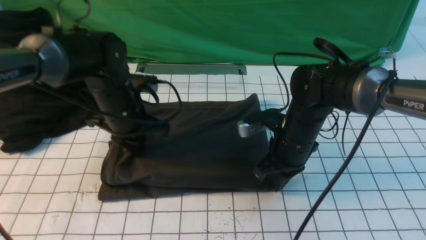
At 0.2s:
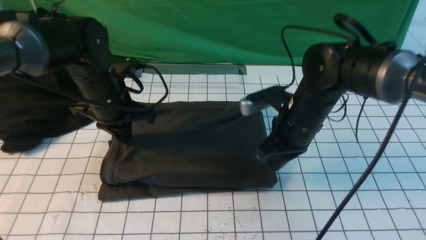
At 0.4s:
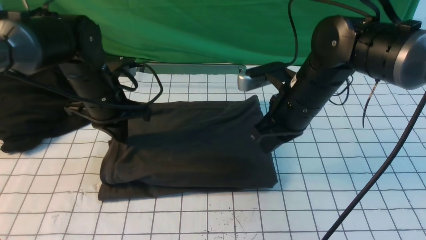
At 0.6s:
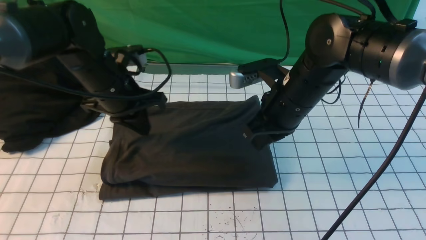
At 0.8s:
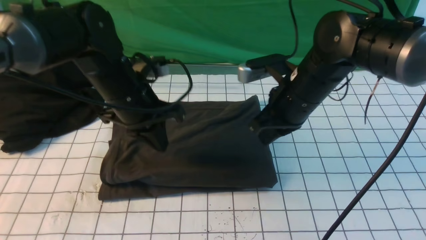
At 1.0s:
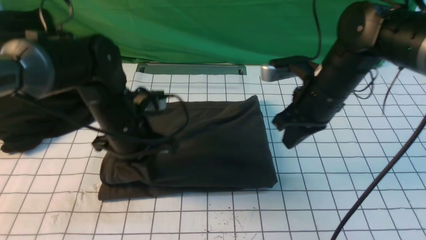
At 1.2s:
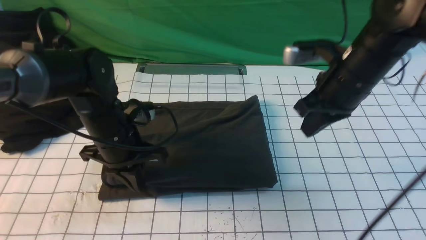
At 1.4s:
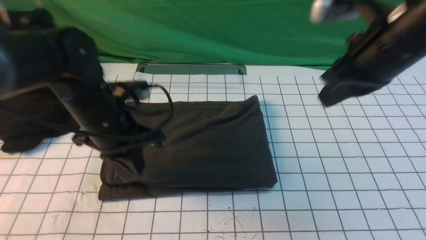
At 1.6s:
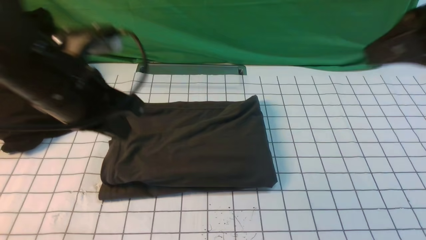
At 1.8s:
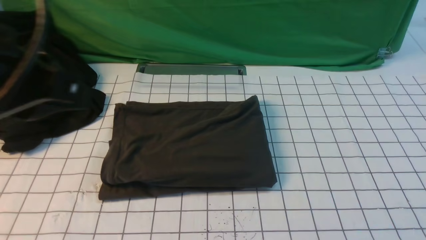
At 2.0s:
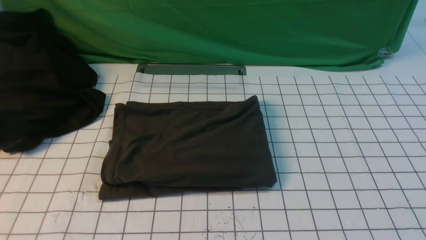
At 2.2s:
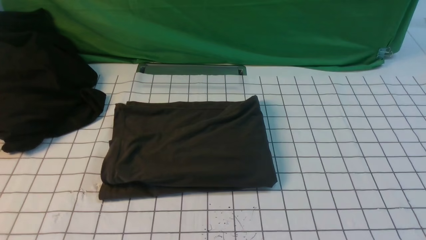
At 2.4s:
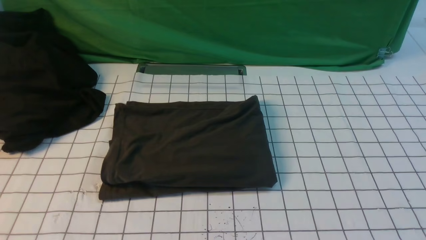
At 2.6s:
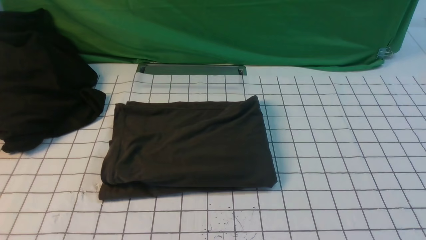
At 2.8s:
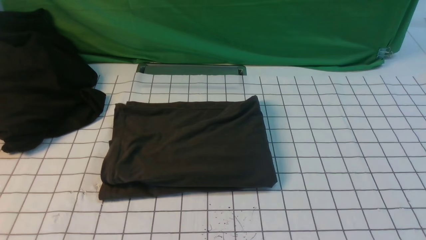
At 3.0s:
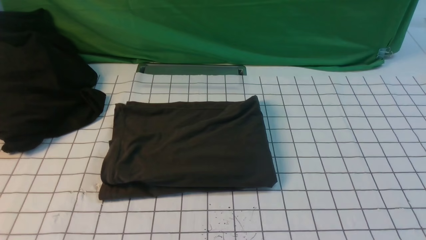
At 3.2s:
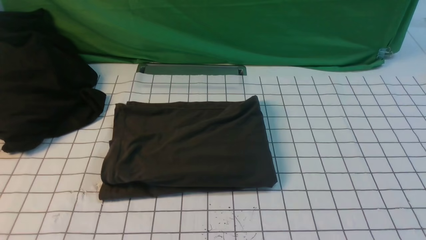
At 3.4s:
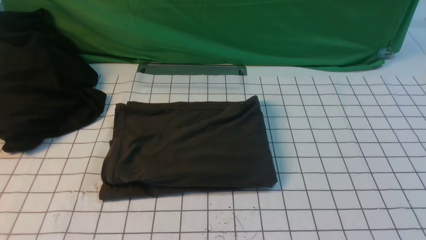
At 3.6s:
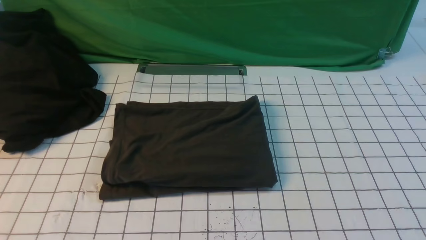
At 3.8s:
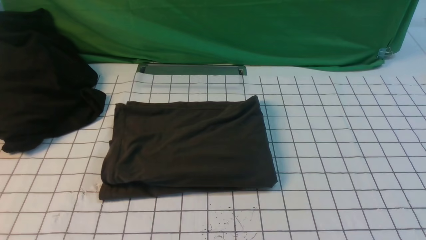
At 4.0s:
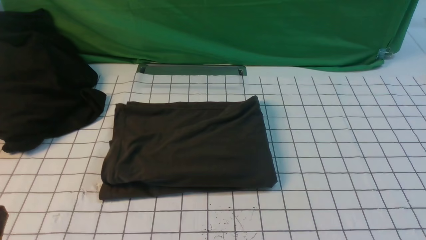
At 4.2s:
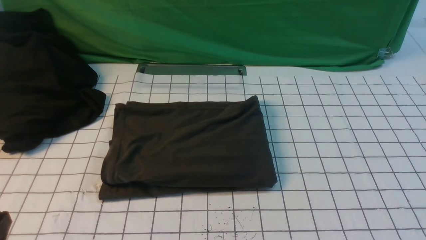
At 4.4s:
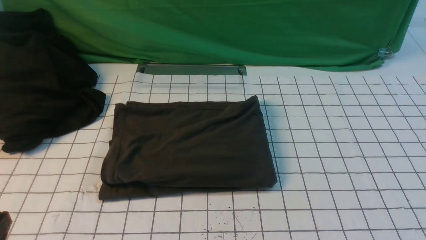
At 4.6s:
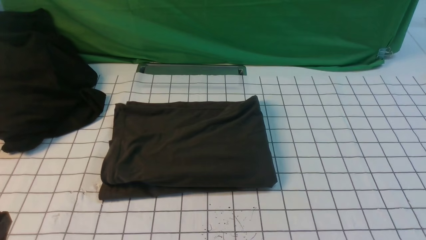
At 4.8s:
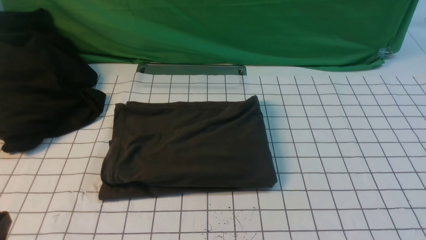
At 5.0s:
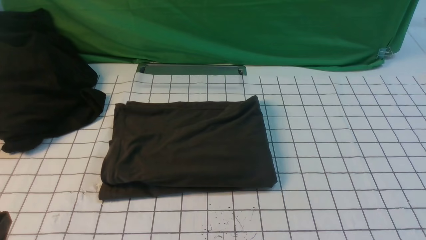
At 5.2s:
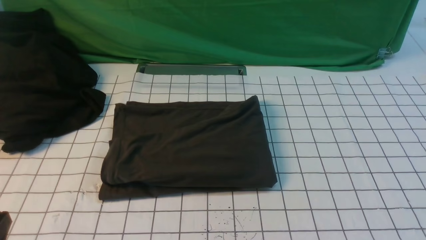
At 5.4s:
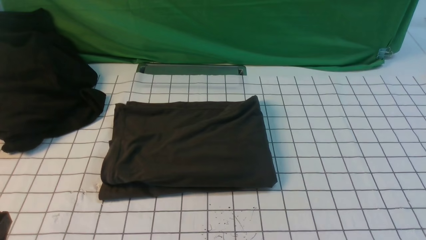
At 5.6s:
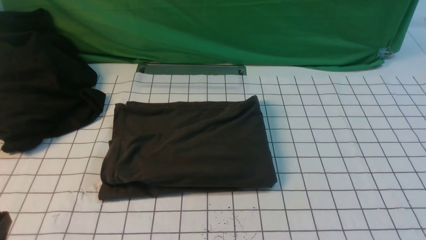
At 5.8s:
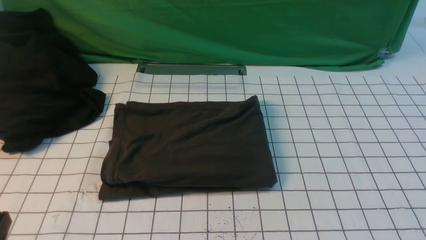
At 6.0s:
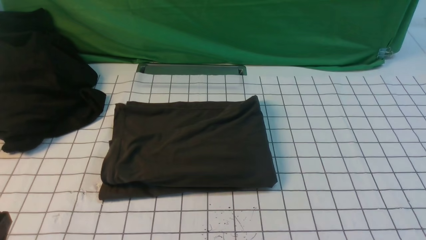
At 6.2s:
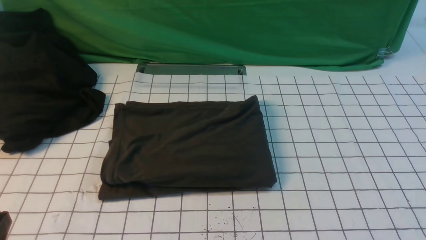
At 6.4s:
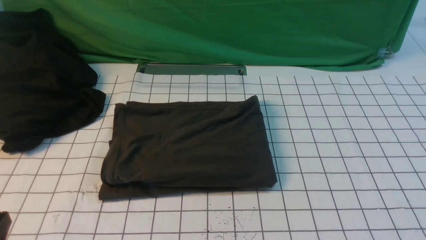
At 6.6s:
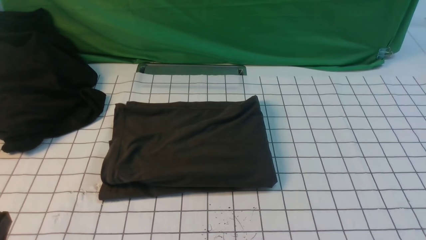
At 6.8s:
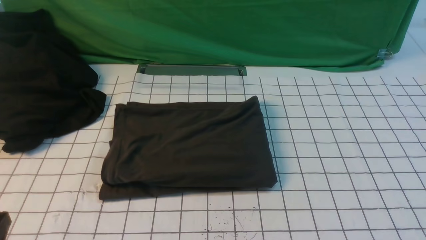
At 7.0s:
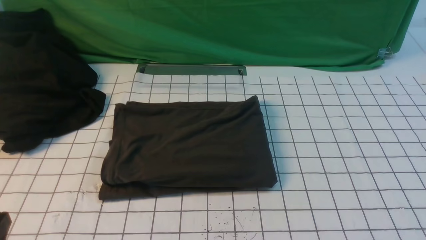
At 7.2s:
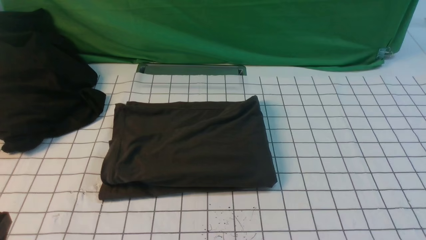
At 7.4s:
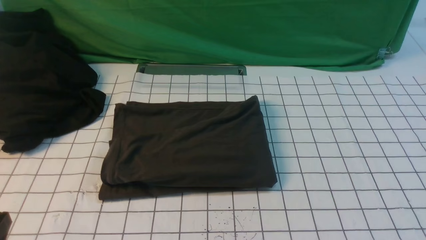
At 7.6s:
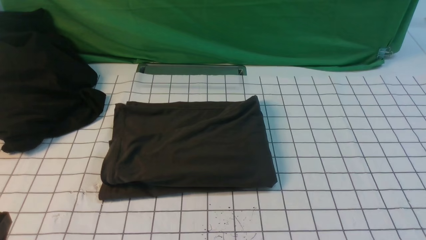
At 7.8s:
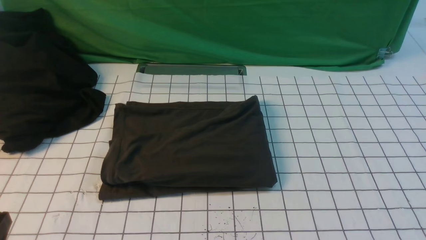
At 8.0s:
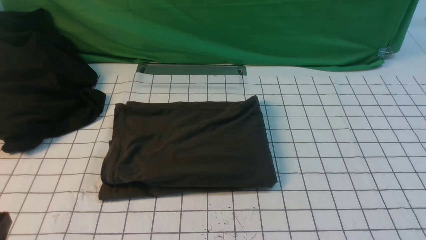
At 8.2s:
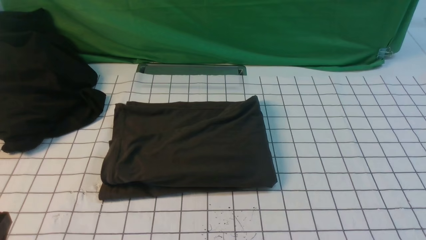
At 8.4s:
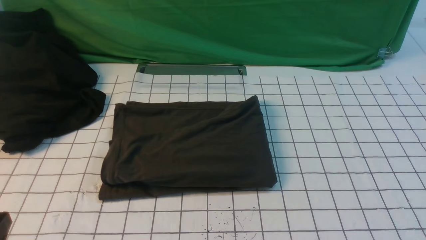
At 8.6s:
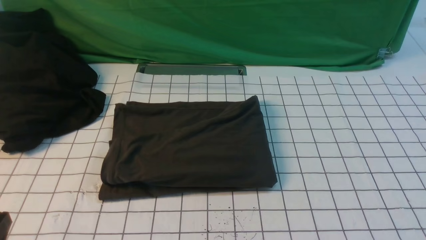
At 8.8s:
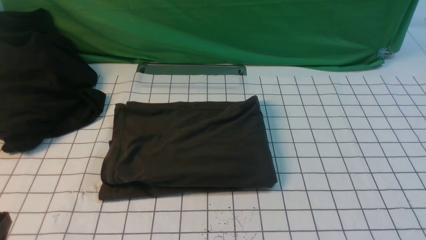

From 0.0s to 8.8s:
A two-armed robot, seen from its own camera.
From 0.0s to 1.4s: The right gripper moves upward, roughly 20 cm. Meanwhile the left gripper moves backward and upward, some 10 cm.
From 1.4s to 3.0s: The left gripper goes some 30 cm backward; the right gripper goes roughly 30 cm backward and to the right.
From 7.4s to 8.8s: Both grippers stay put.

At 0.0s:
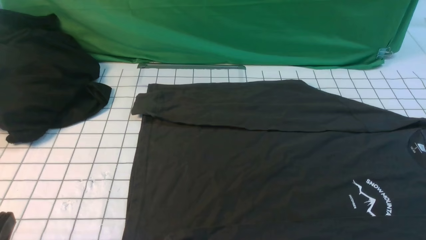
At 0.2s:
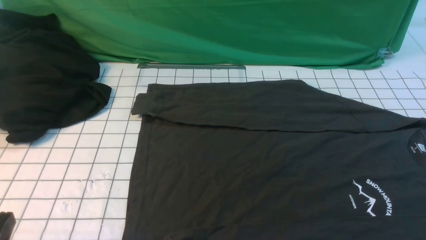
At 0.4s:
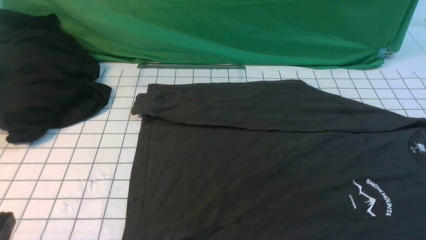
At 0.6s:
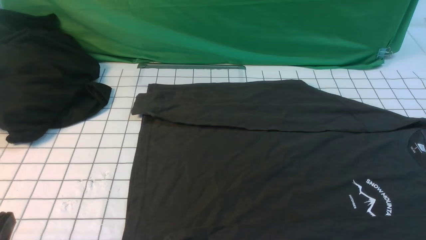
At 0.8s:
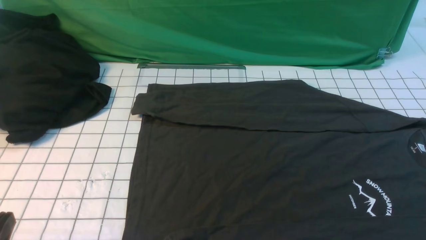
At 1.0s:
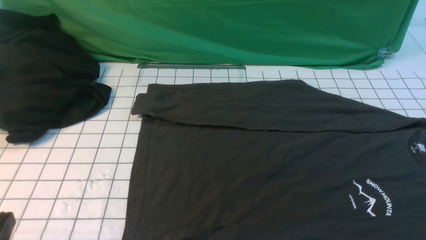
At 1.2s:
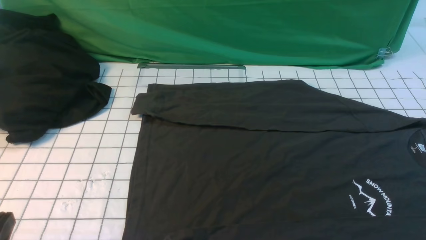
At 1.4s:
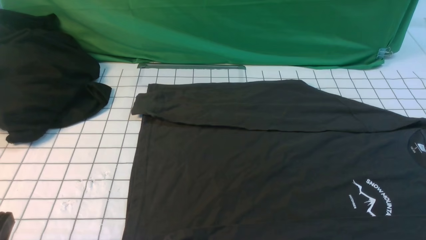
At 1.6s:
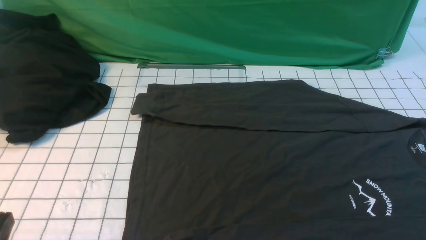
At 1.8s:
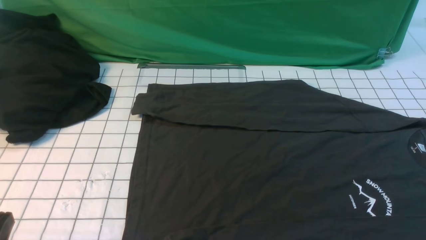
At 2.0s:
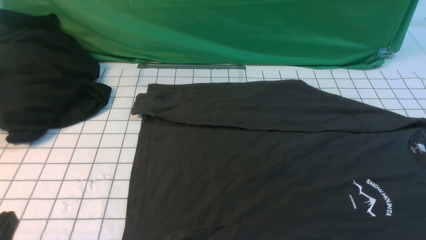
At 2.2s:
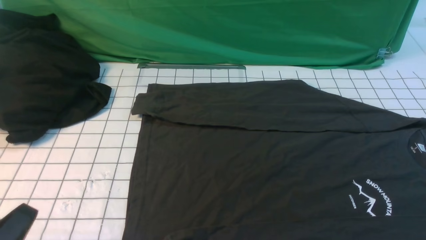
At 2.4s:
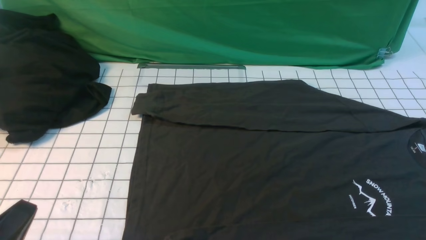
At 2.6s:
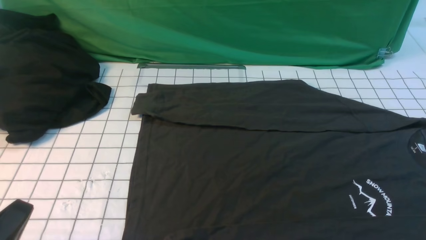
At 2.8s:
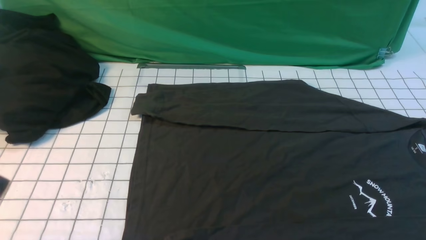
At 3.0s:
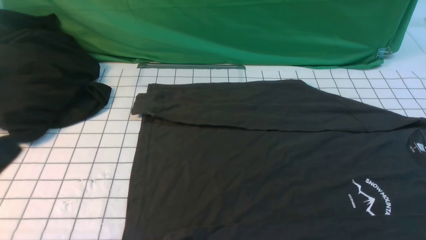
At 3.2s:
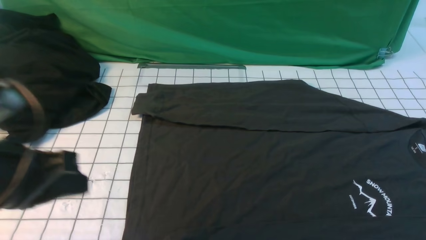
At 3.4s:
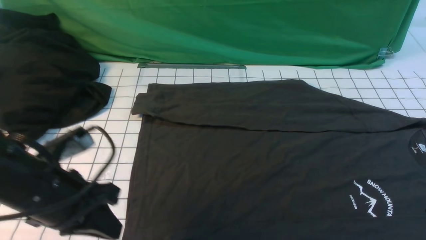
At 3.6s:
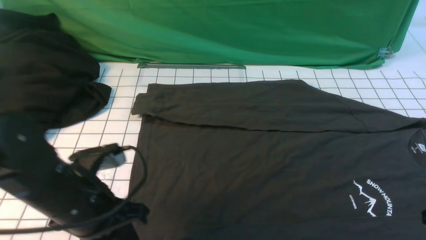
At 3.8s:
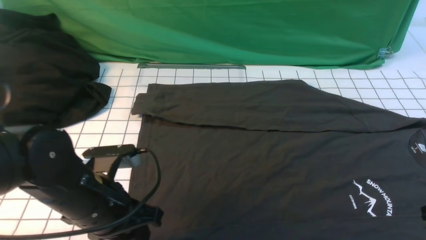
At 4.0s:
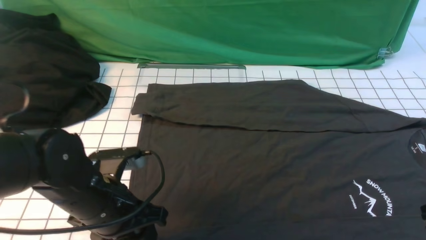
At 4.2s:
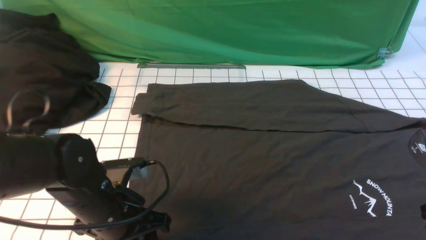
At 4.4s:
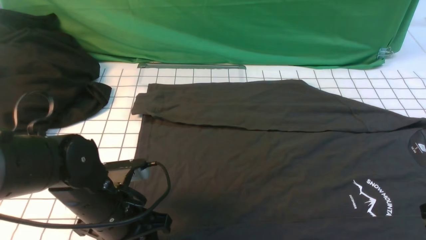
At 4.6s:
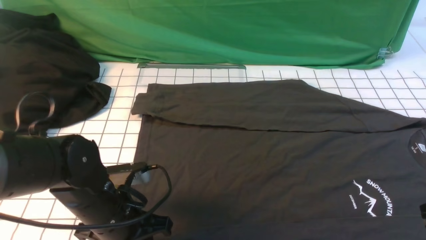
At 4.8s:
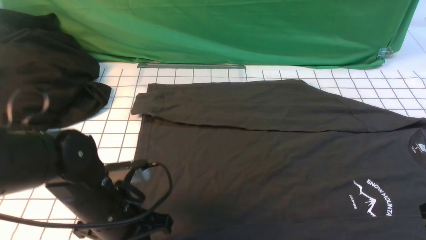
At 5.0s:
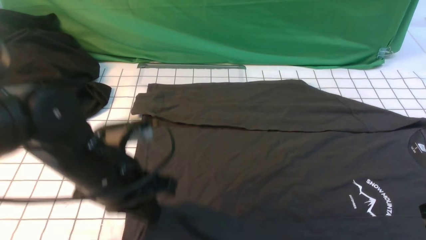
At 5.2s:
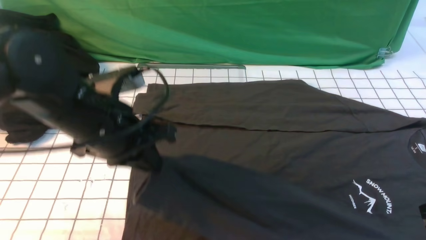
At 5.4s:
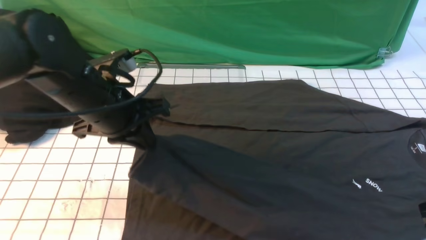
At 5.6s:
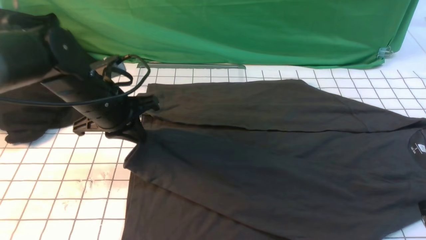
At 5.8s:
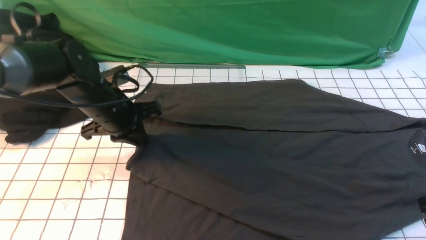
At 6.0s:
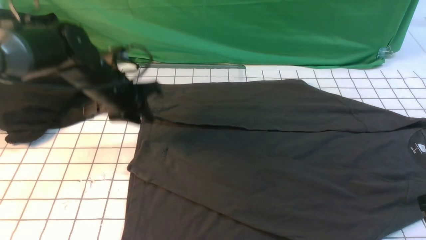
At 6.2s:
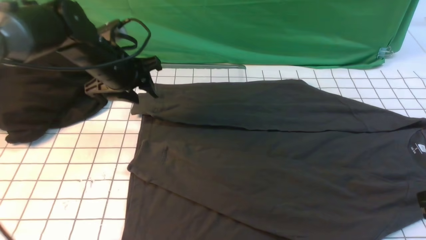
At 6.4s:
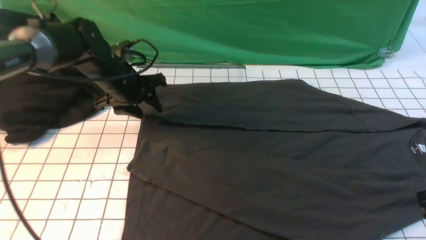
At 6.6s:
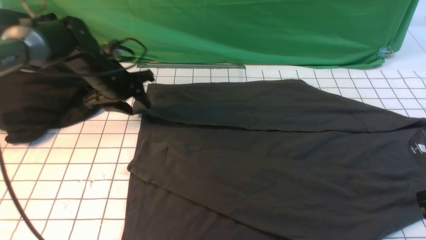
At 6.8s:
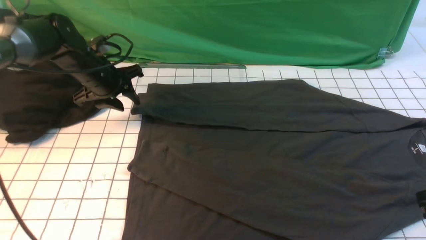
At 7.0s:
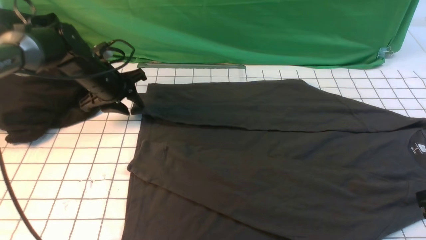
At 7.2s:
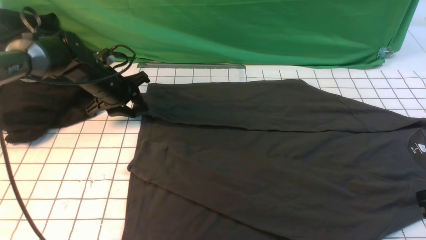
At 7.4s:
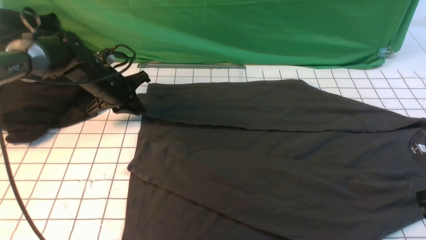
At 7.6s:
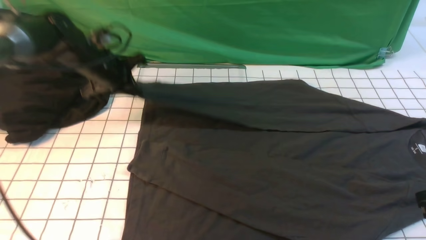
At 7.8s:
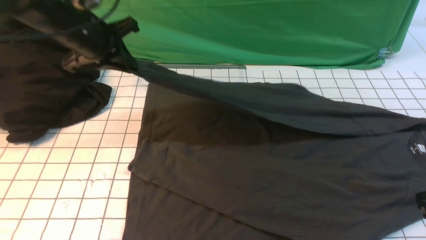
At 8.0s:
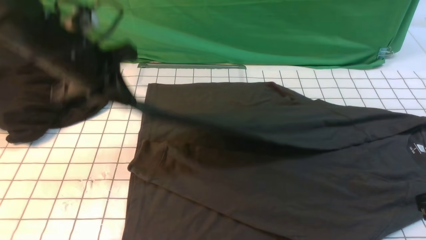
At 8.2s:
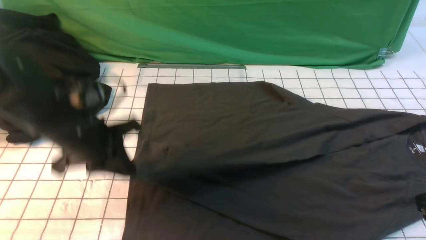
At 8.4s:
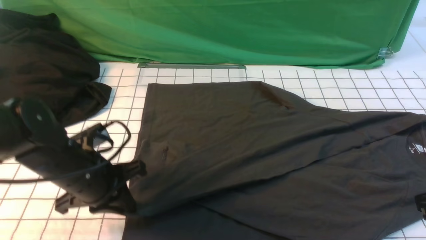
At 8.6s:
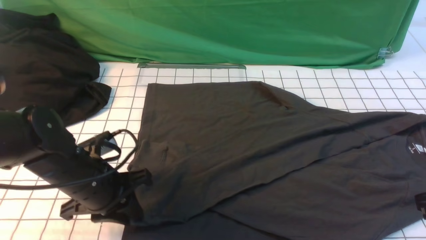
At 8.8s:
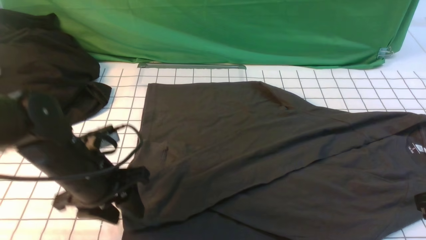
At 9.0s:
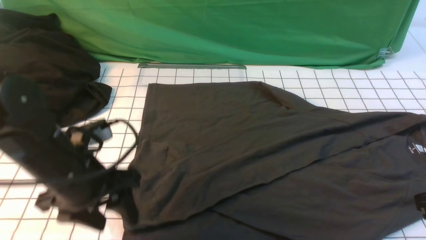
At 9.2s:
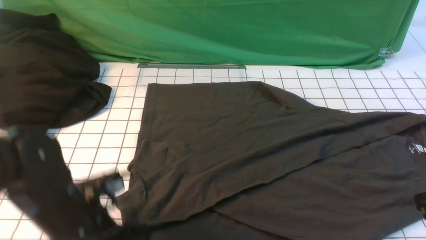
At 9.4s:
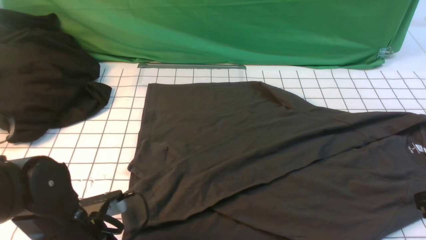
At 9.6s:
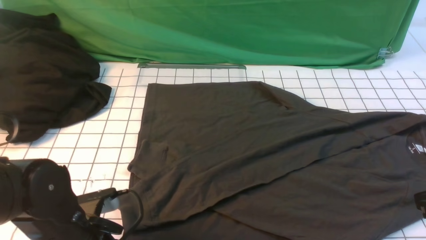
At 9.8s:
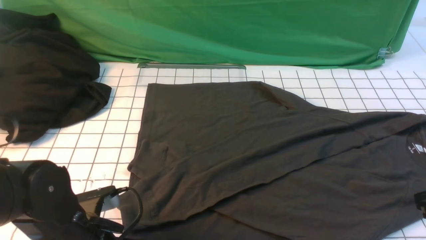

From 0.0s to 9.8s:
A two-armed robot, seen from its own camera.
Step, from 0.0s to 4.6s: use the left arm to clamp the cuff closest to it.
Step, from 4.8s to 5.8s: use the left arm to drag and place the cuff at the centered position on the left edge of the fabric.
Step, from 6.2s to 7.4s: use the left arm to clamp the cuff farthest from it.
Step, from 7.6s to 8.8s: use the left arm to drag and drop the cuff onto the cuff closest to the left arm.
From 0.0s to 1.4s: Both grippers stay about where they are.
From 2.8s to 4.2s: The right gripper shifts about 10 cm forward; the left gripper is displaced forward, to the right and downward by roughly 20 cm, and opens its fingers.
From 4.2s to 5.6s: The left gripper travels forward and upward by about 15 cm, and closes up.
From 5.6s to 7.0s: The left gripper goes approximately 15 cm forward, downward and to the left, and opens.
From 7.0s to 8.4s: The left gripper goes approximately 20 cm backward, and closes its fingers.
From 8.4s to 9.8s: The left gripper is displaced backward by approximately 10 cm, and opens up.
